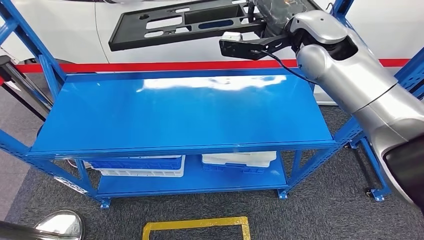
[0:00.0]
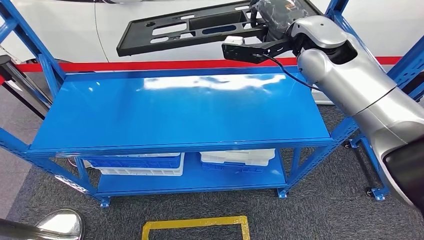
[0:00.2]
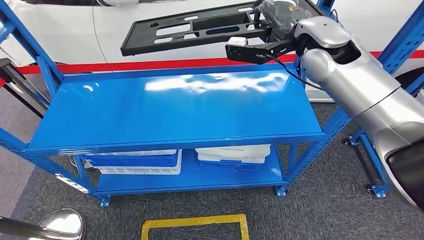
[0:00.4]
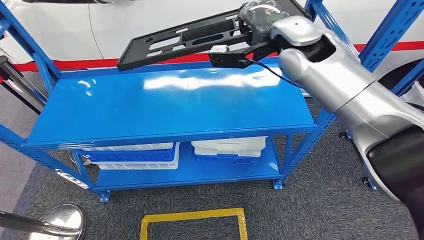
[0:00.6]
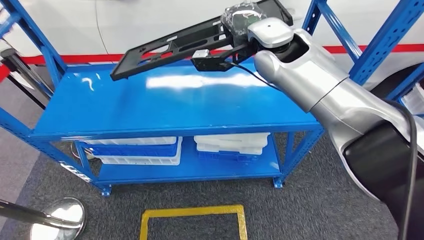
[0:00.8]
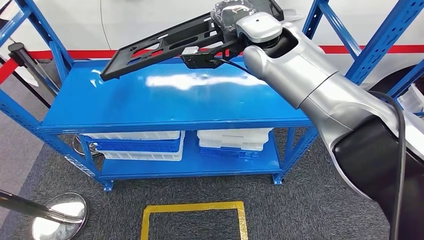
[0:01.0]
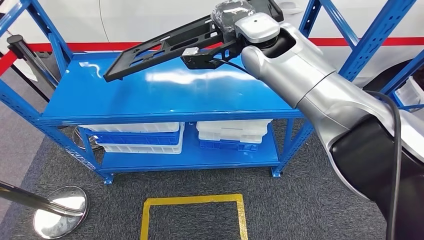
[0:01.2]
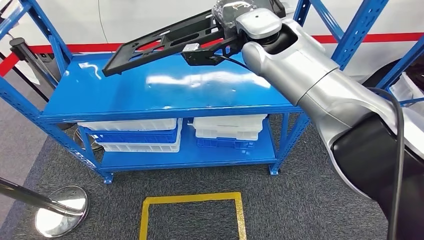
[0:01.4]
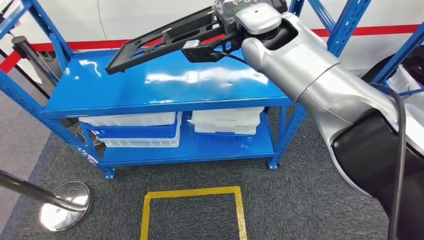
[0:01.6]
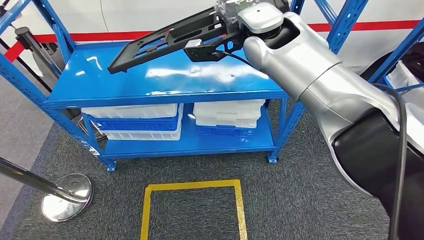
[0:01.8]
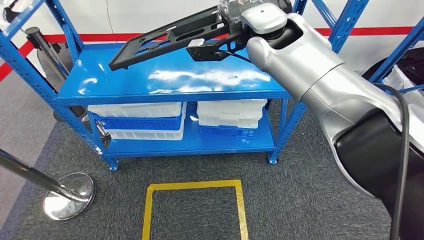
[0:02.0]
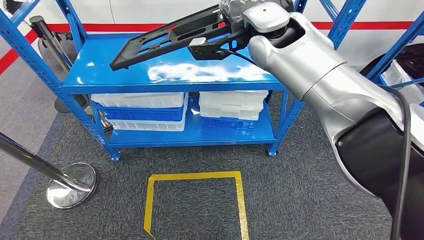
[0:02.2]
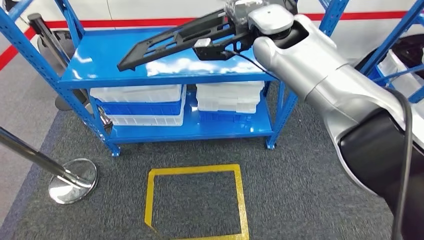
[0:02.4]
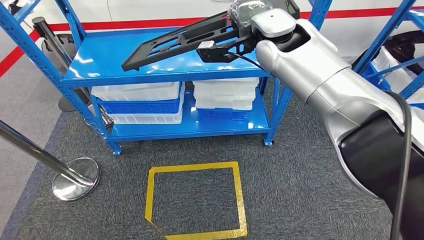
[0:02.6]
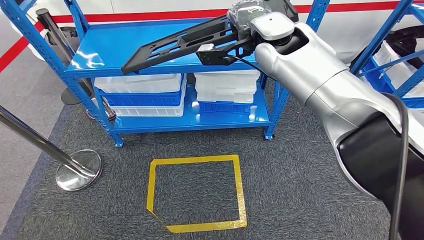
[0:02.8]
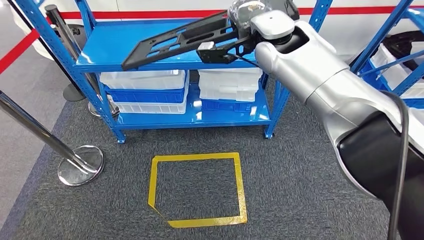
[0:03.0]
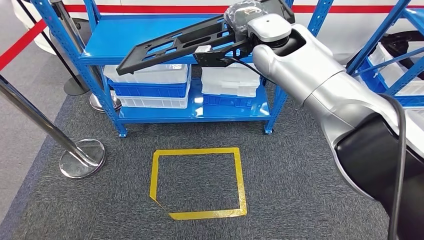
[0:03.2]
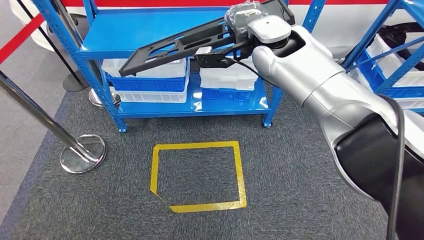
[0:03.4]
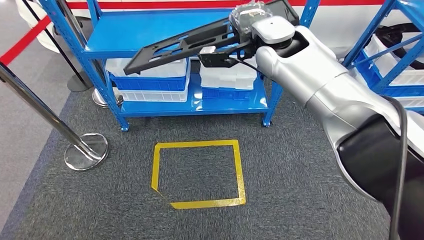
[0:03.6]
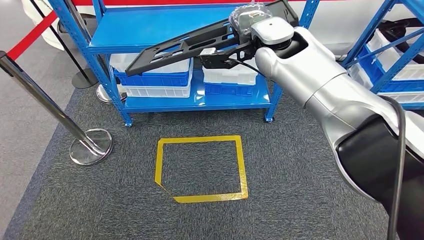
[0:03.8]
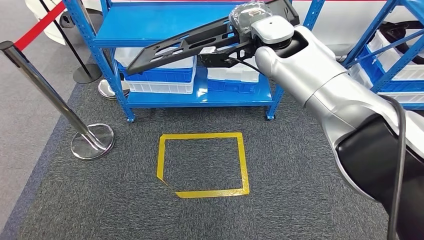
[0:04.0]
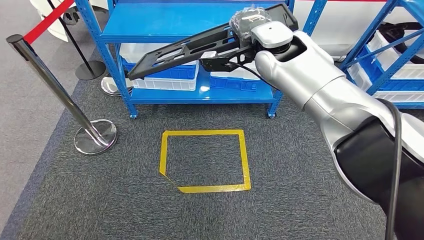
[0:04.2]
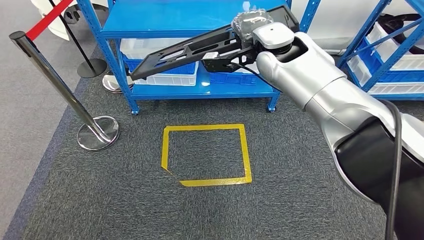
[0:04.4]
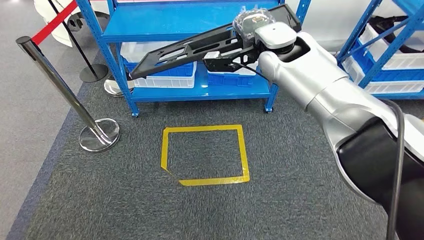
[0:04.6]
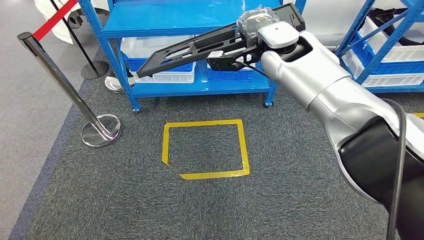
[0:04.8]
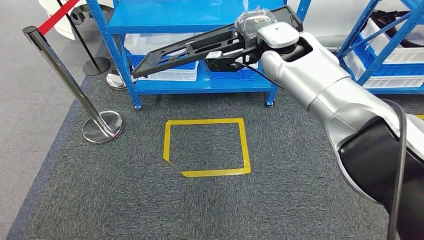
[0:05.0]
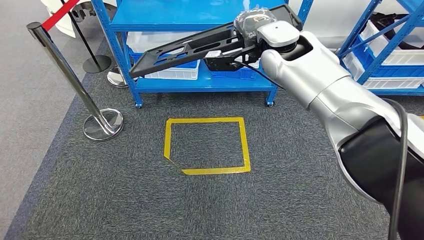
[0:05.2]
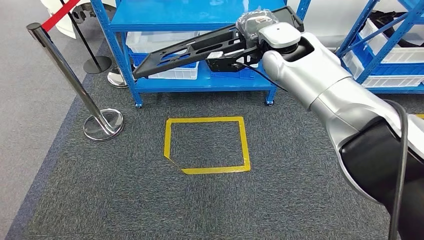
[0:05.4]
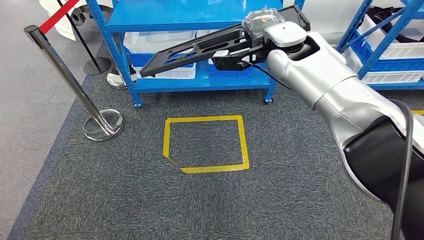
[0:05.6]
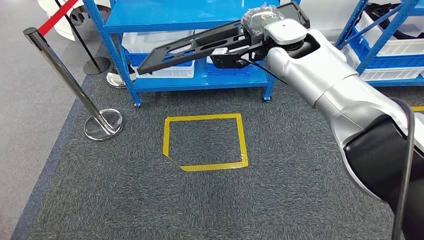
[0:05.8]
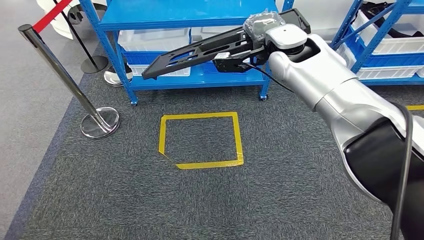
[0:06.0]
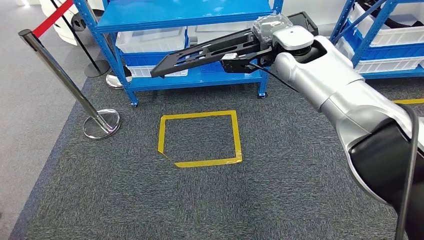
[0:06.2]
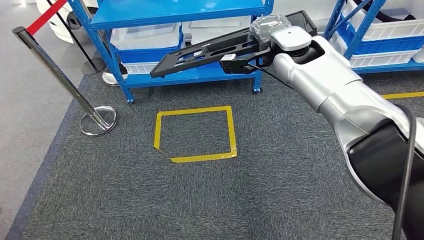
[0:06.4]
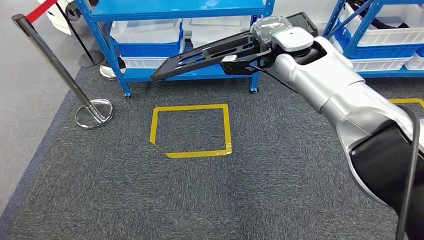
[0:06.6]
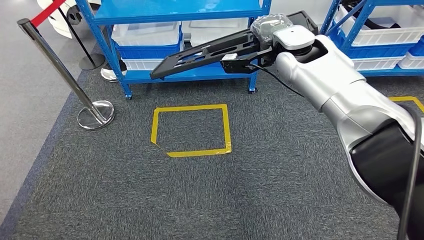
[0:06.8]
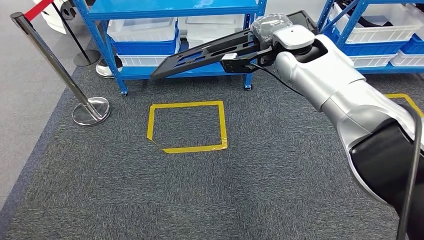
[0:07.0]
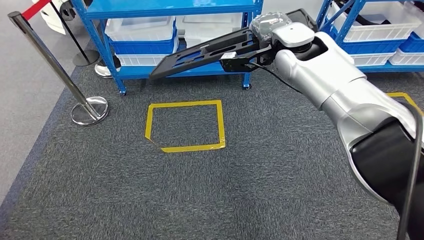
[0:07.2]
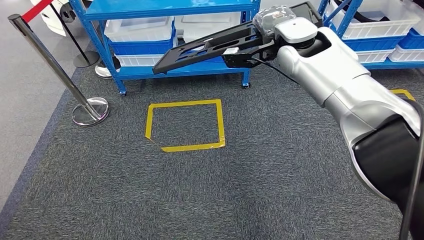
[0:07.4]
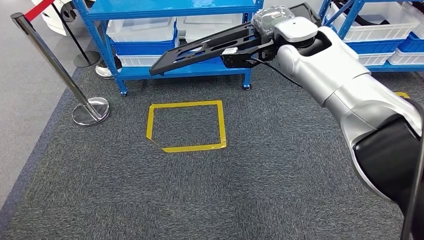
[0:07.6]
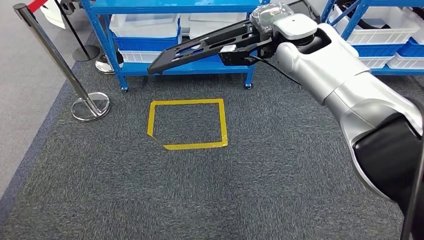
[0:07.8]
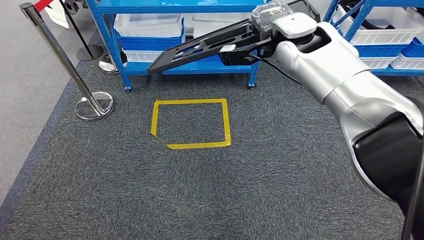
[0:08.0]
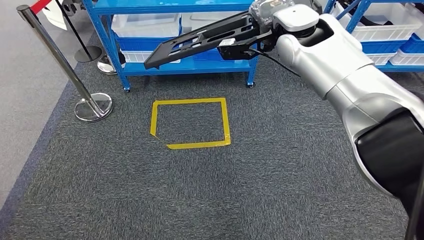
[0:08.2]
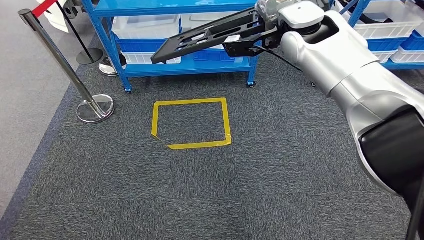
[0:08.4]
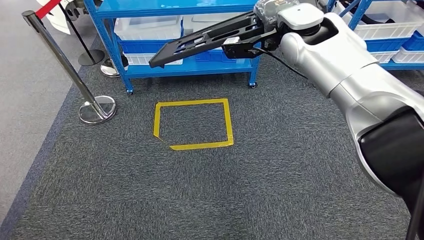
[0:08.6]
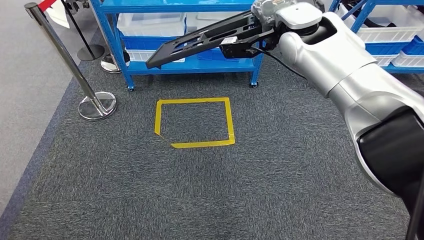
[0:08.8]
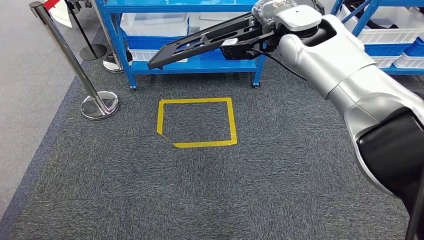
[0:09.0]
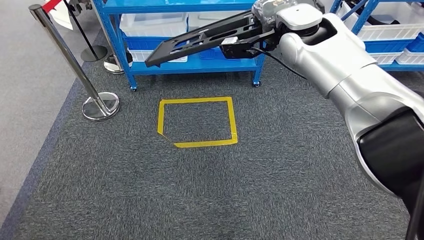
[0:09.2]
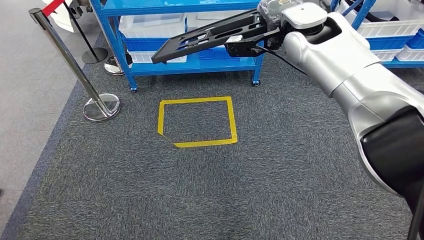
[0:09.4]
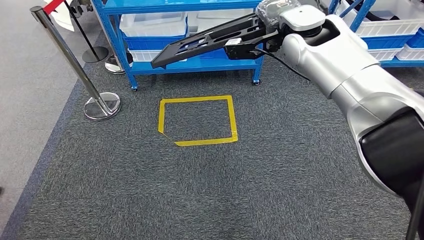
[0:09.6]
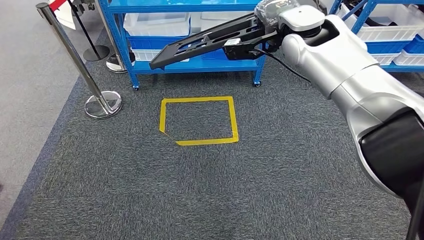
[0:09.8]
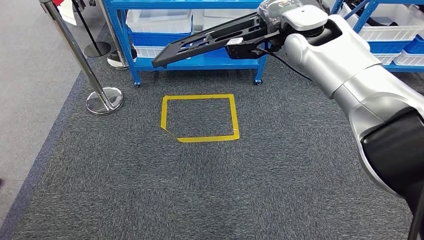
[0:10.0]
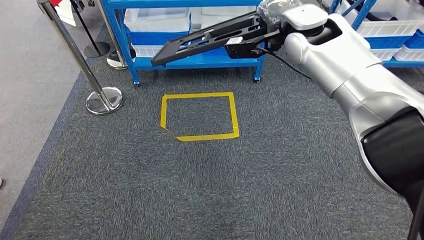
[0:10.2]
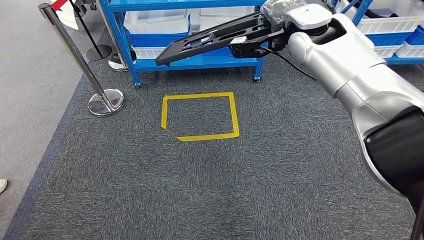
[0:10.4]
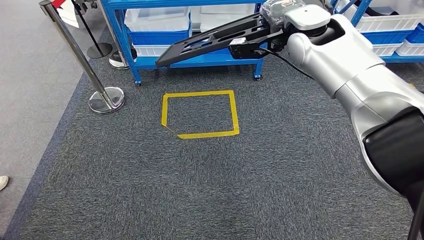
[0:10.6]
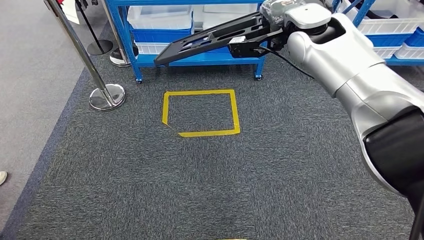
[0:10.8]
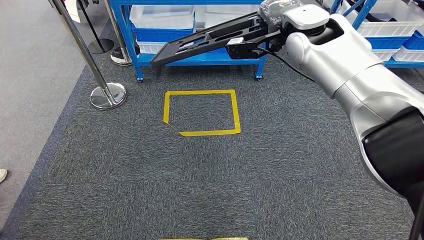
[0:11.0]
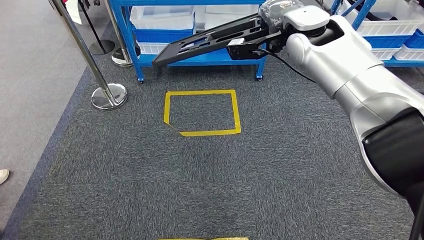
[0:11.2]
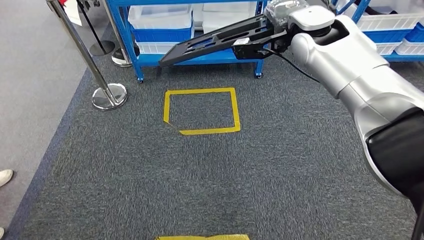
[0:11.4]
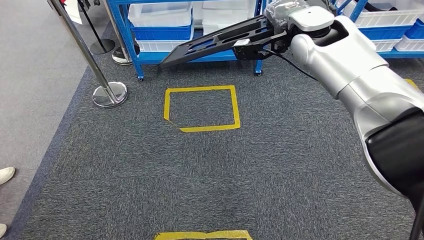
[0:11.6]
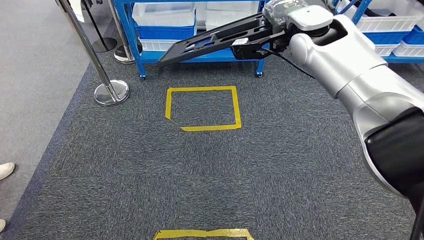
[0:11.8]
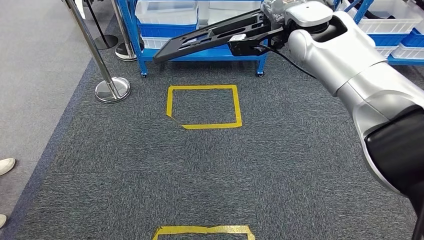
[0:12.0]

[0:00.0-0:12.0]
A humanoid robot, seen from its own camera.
Step, 0:00.0 to 0:02.8: Pick up the large material from the shelf.

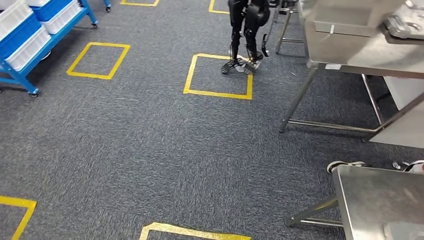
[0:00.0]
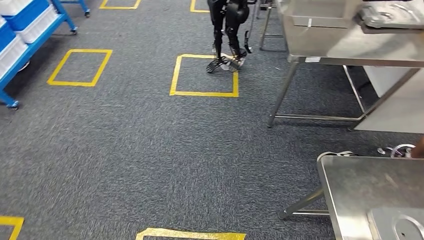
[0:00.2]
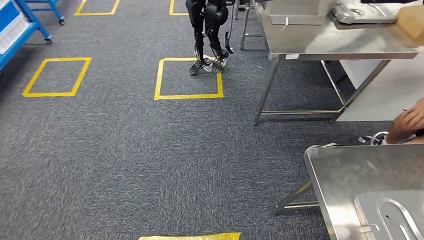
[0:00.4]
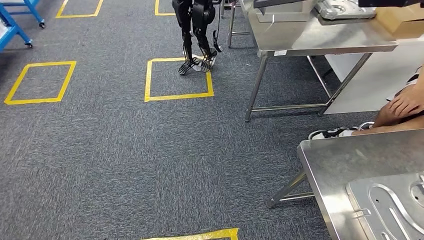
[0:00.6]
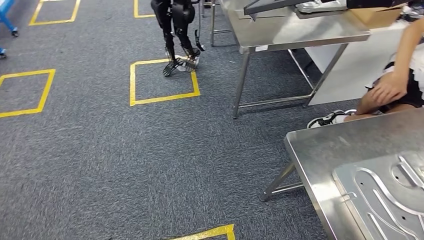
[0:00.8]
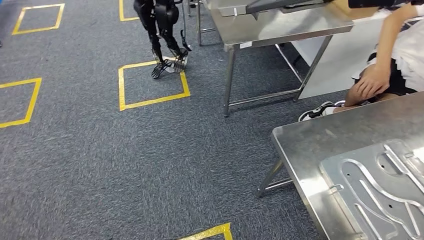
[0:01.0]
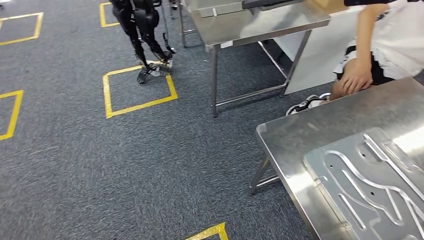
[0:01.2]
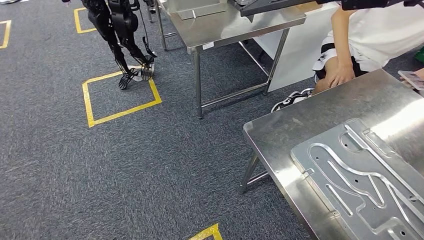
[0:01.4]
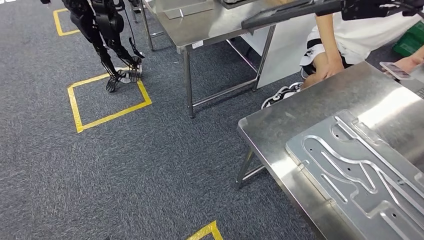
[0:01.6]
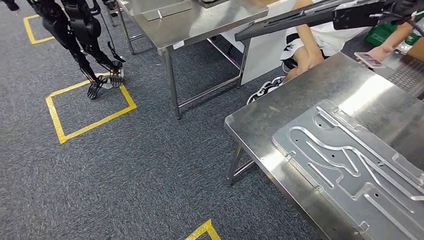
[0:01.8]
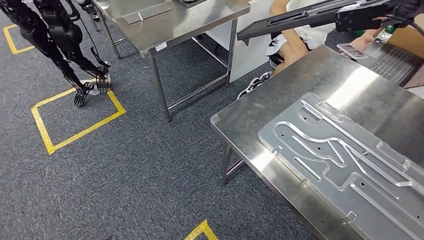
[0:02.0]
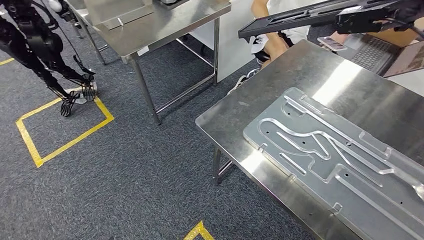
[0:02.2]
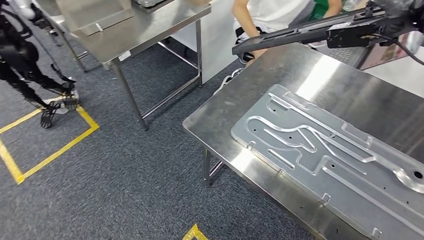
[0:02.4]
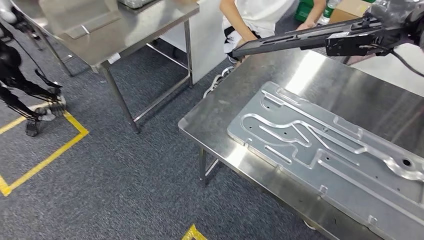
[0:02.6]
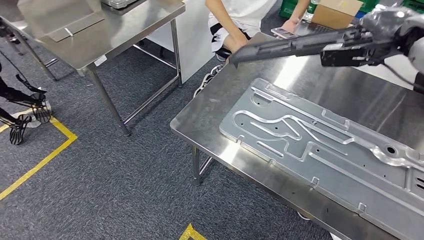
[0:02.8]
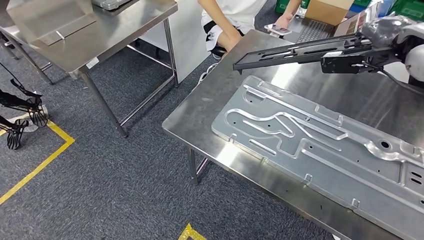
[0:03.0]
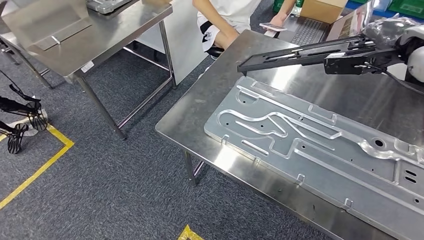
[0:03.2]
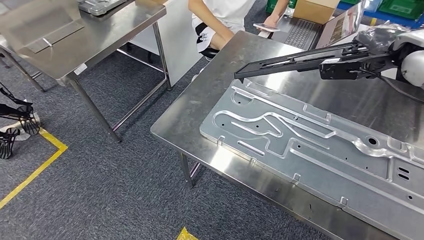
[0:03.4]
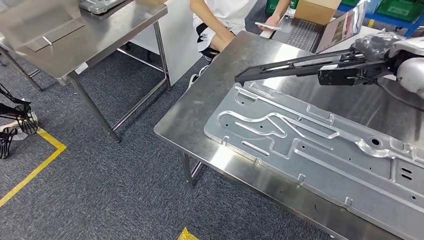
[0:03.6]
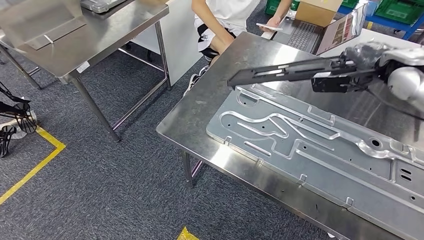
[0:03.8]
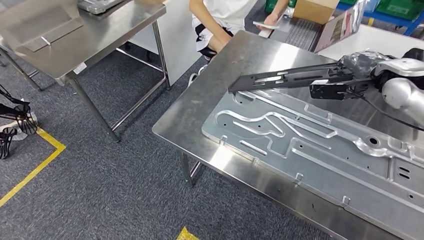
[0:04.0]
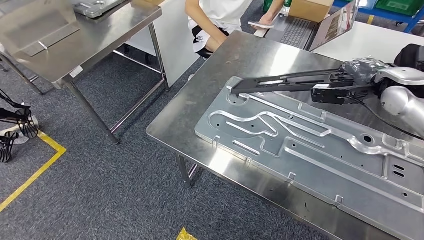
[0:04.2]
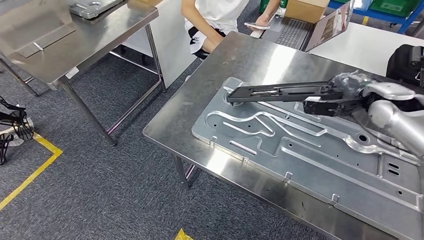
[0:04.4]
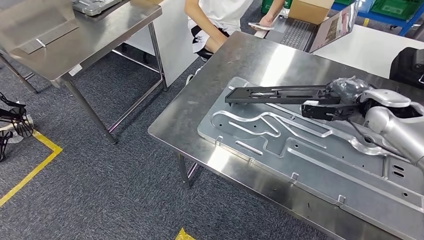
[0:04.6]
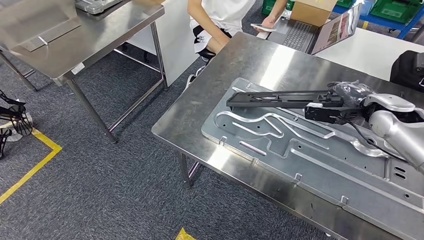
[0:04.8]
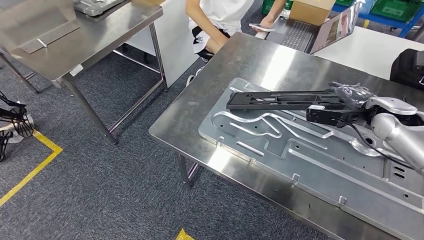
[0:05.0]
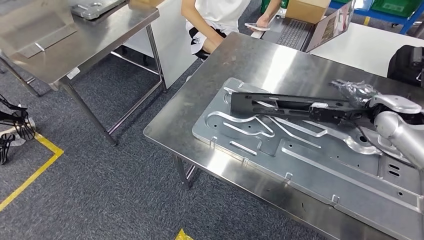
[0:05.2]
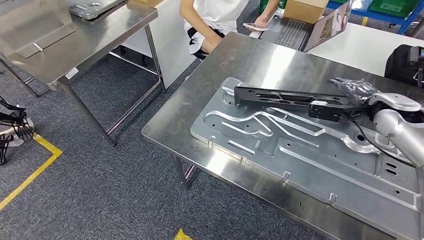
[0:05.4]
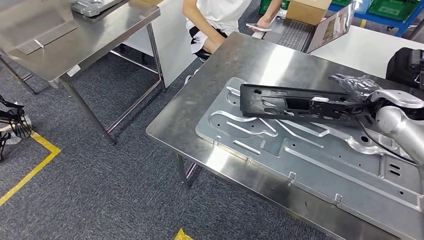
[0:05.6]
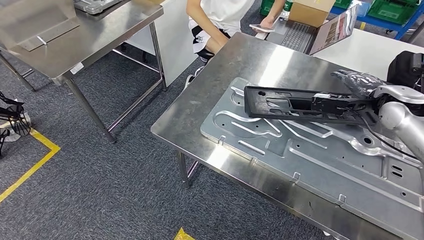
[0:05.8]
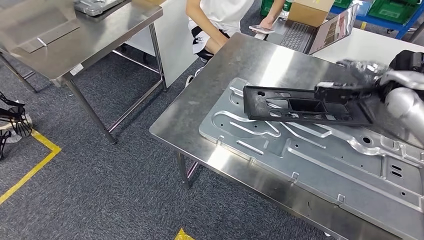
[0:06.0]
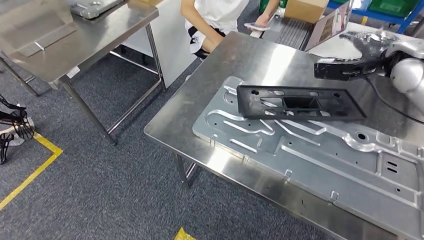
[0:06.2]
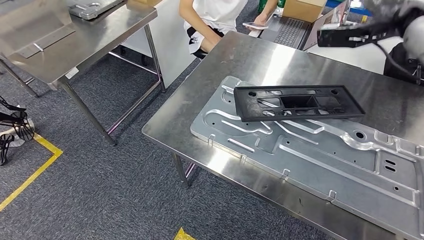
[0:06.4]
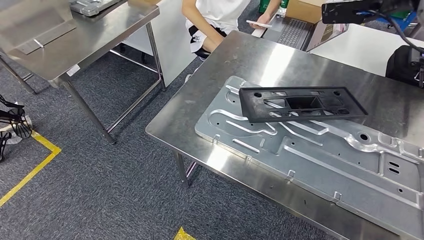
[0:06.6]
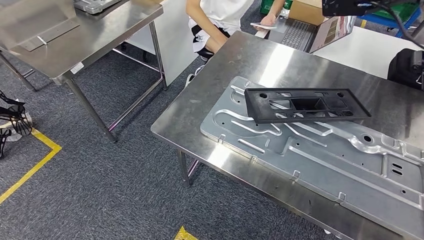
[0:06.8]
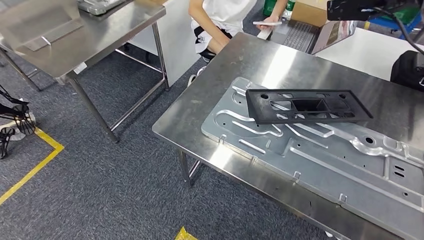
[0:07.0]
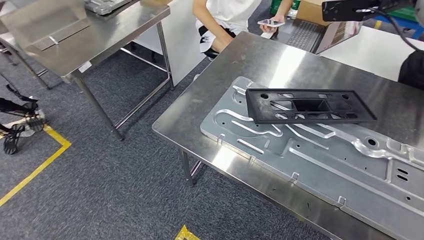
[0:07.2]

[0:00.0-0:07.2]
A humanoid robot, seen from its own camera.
Step, 0:00.0 to 0:04.2: Move the large material to the workbench.
